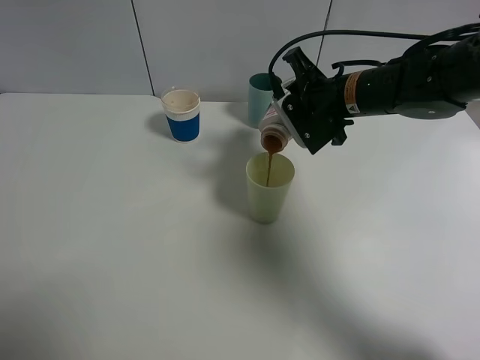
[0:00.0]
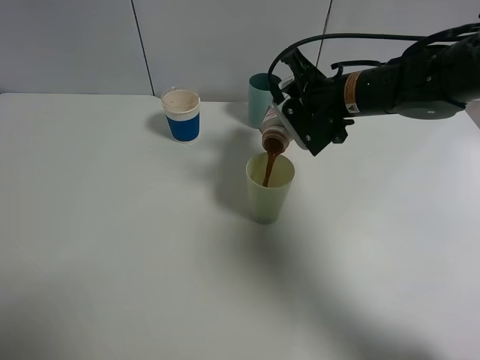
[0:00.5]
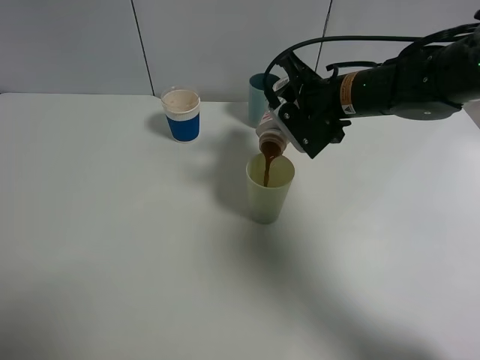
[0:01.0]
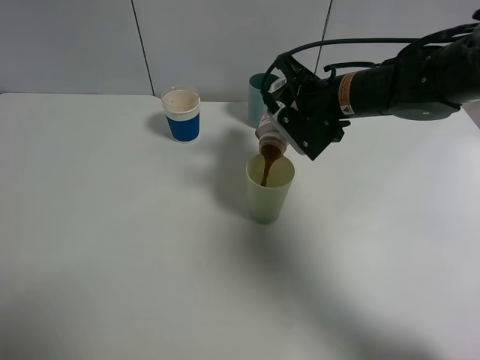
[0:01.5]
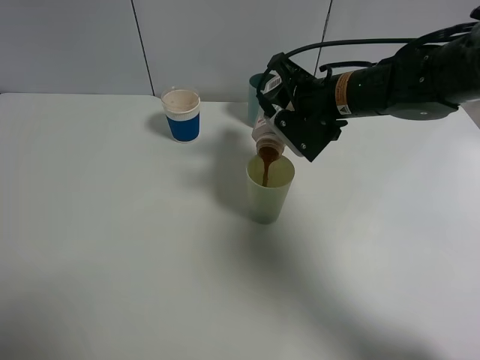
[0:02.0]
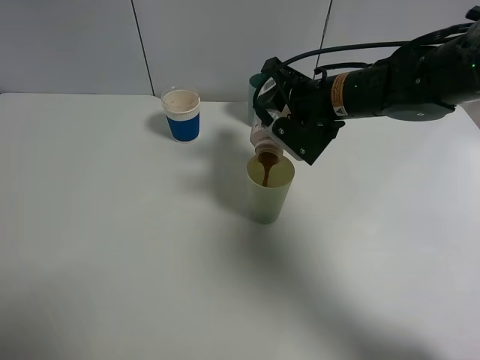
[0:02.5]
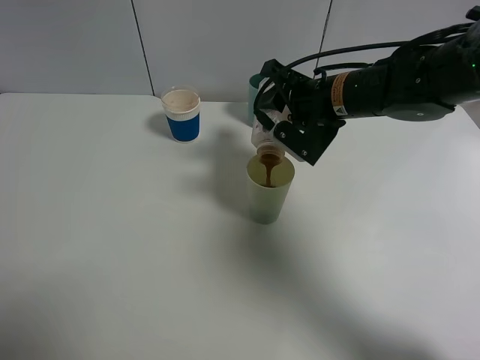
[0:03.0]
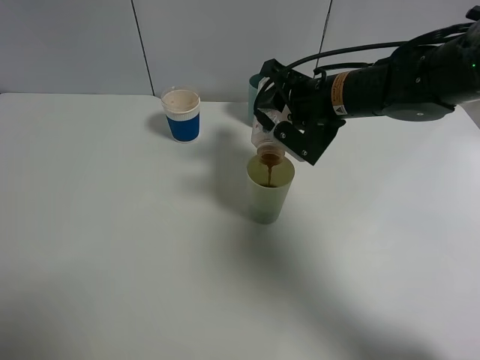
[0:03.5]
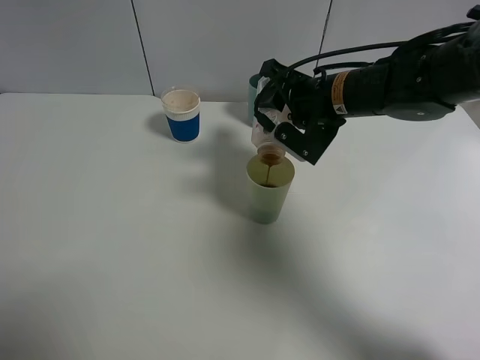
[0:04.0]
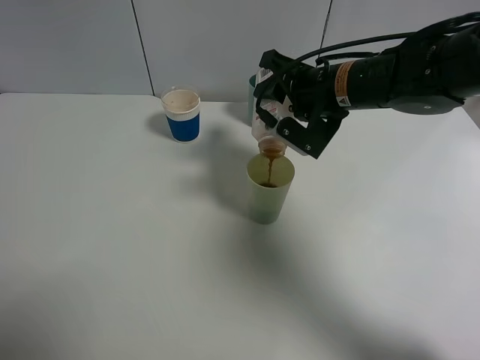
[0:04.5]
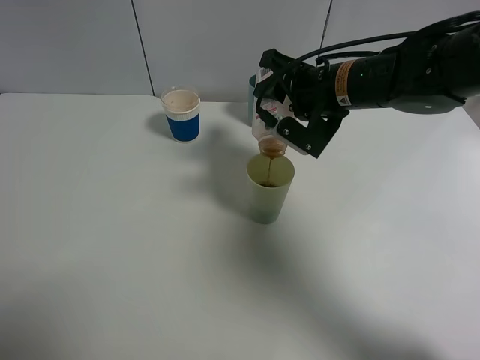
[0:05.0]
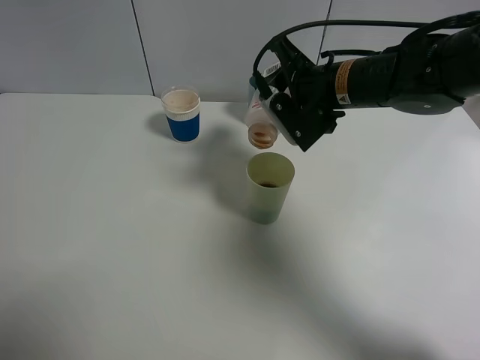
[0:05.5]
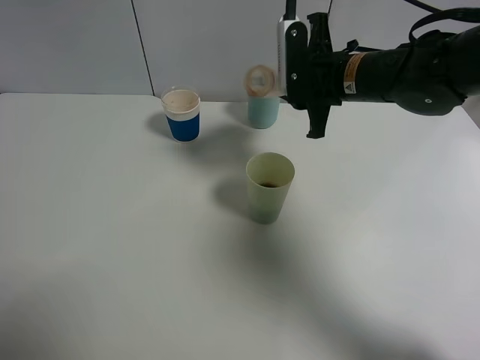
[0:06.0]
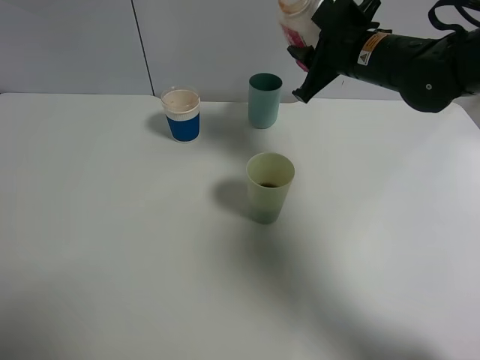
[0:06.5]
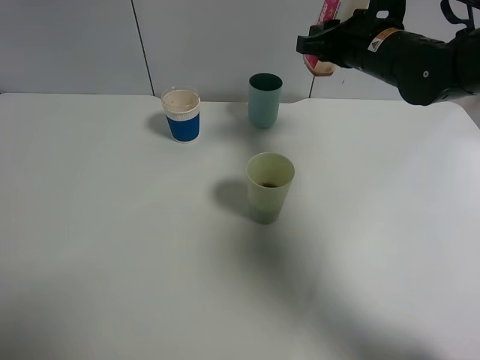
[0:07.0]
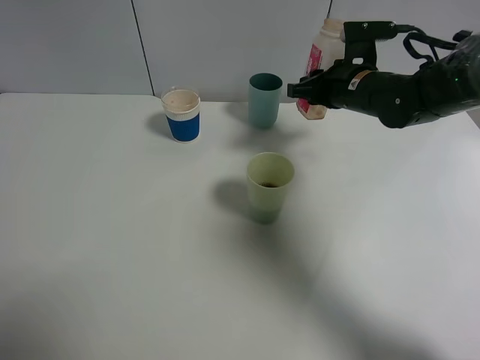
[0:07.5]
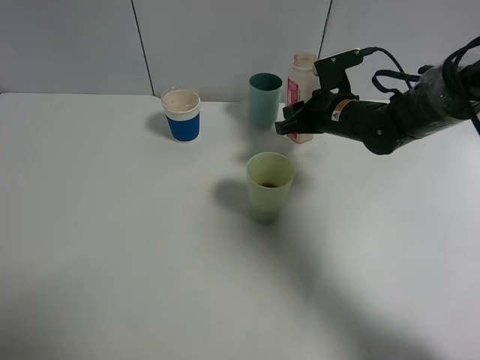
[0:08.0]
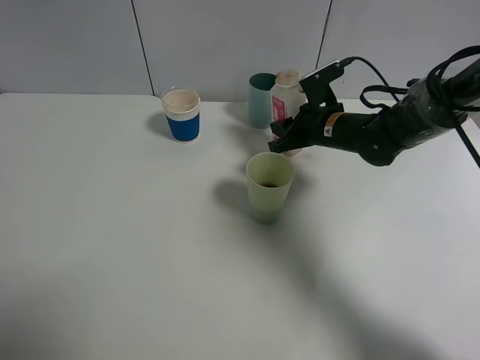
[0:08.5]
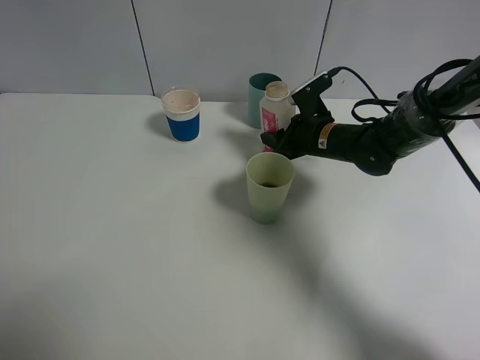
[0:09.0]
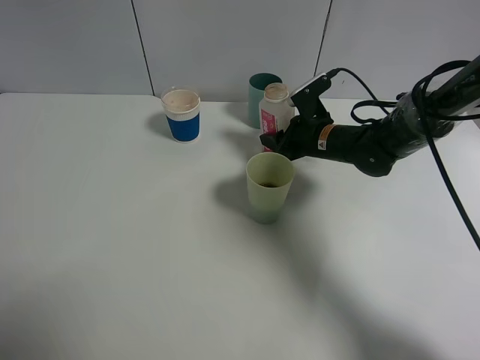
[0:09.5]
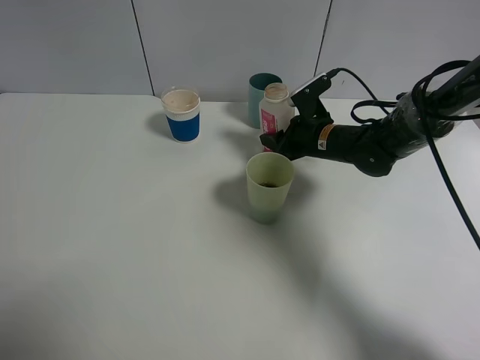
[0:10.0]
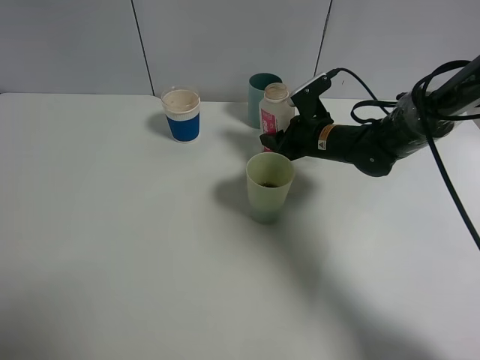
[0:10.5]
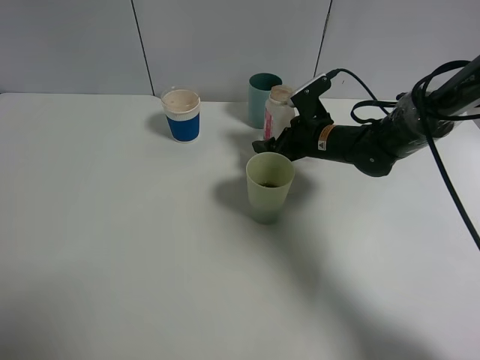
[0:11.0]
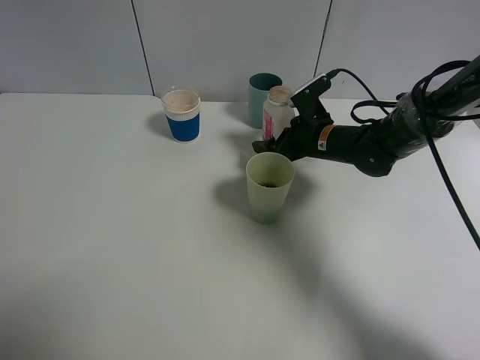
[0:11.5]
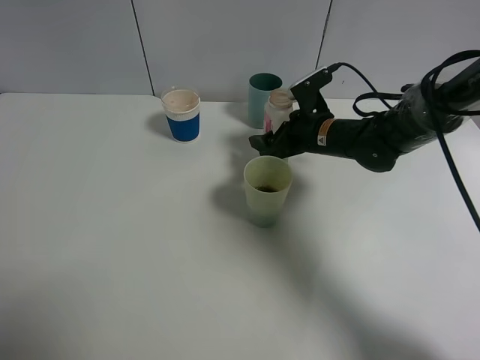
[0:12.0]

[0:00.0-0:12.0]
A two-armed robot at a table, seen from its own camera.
Task of the whole recording: use a gripper to hold the bottle of the drink and pour it into a random cup.
Step, 0:00.0 to 0:05.5: Pour the cranberry juice into the White Plastic Cup with the right gripper.
0:00.0 to 0:04.0: The grippers stay close to where they were, moving slightly.
0:06.0 to 0:08.0: The right gripper shifts roughly 10 cm downward.
0:08.0 to 0:10.0: There are only small adjustments of the grippers.
0:10.0 to 0:12.0: The right gripper opens up.

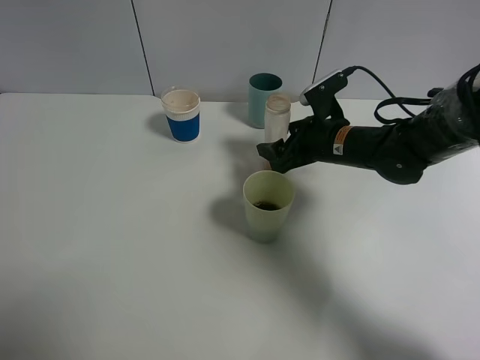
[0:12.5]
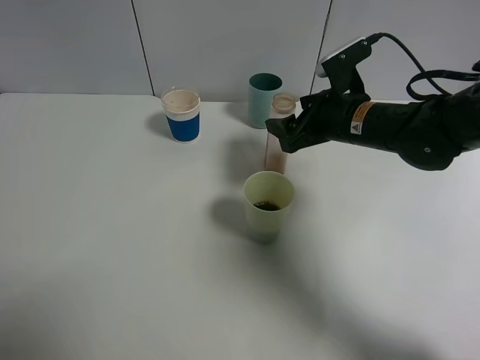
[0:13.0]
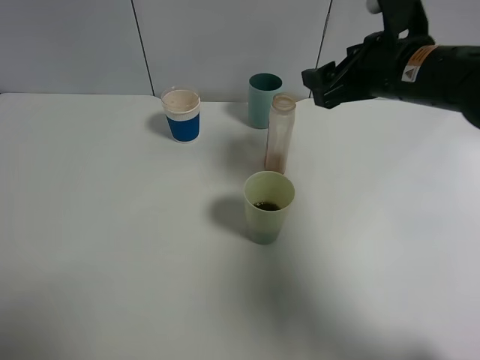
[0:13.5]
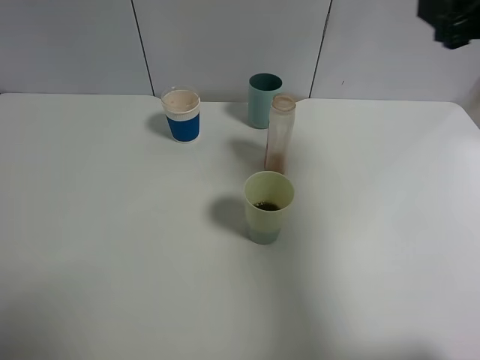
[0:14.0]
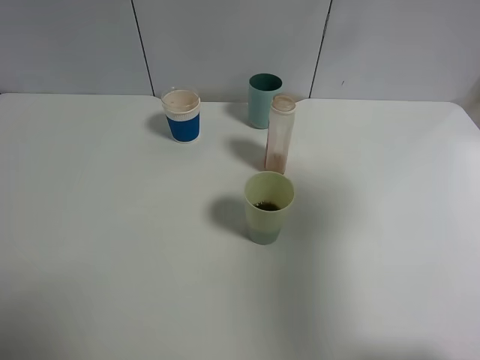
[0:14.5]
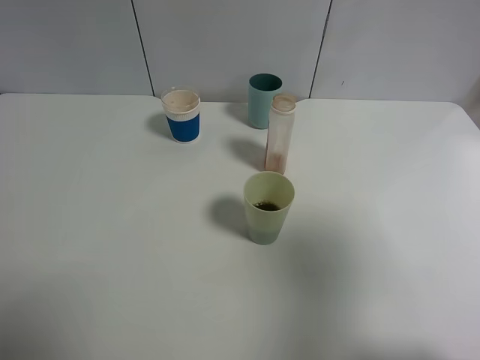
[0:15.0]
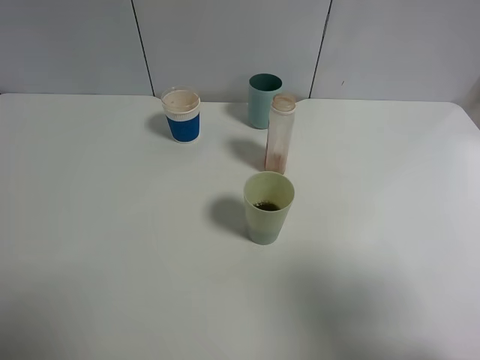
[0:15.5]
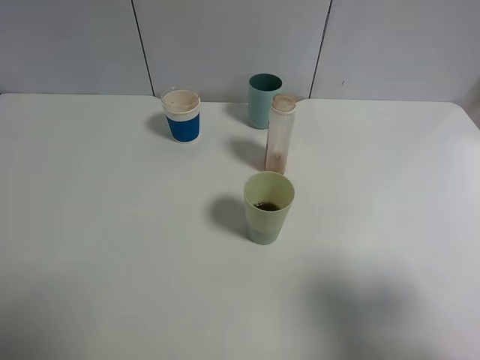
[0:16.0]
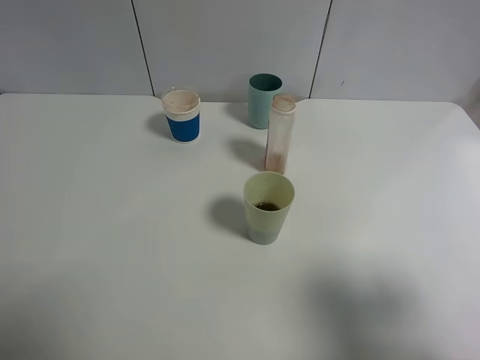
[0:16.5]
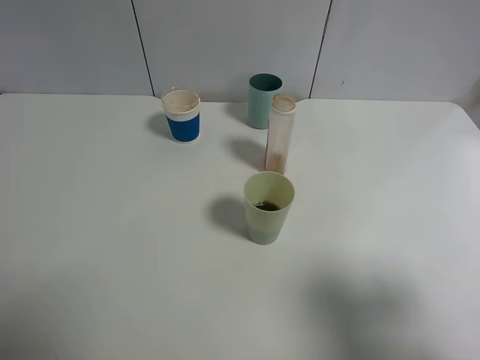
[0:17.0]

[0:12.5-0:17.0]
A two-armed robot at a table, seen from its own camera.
Task of the whole recording: use a gripper to hold the bottle of the drink and pour it into a random cup.
0:12.5 to 0:14.5: The right gripper is displaced upward, backward and to the right by approximately 35 cm.
0:14.5 to 0:17.0: The right gripper is displaced downward and backward by roughly 15 cm.

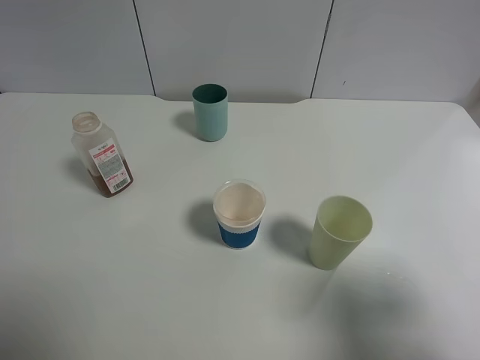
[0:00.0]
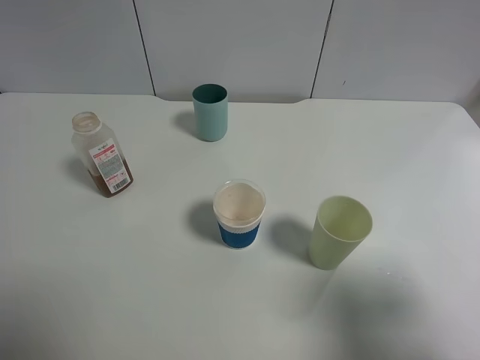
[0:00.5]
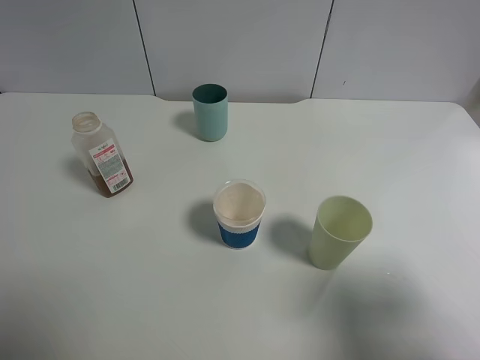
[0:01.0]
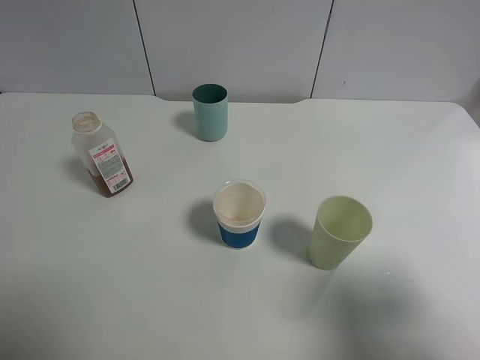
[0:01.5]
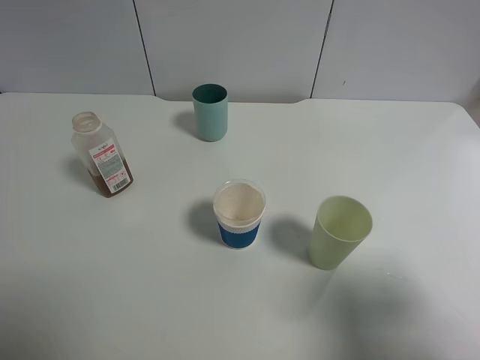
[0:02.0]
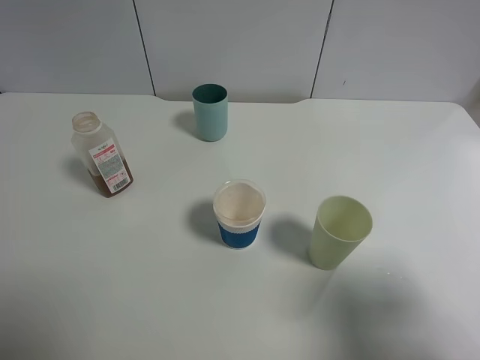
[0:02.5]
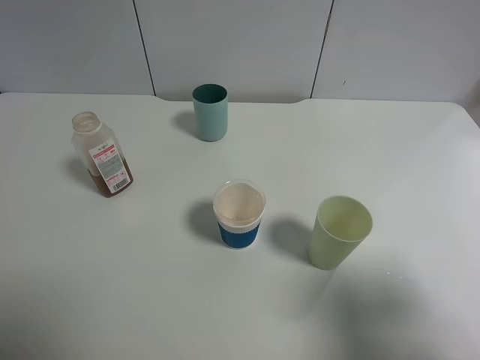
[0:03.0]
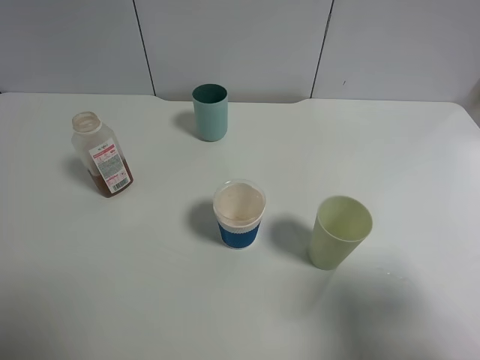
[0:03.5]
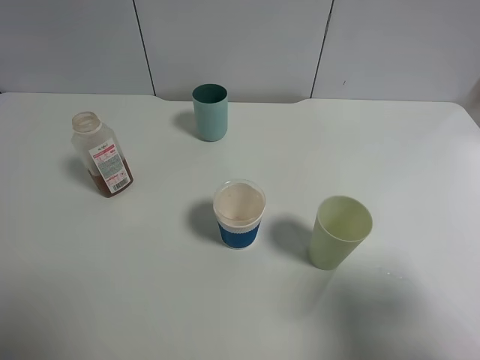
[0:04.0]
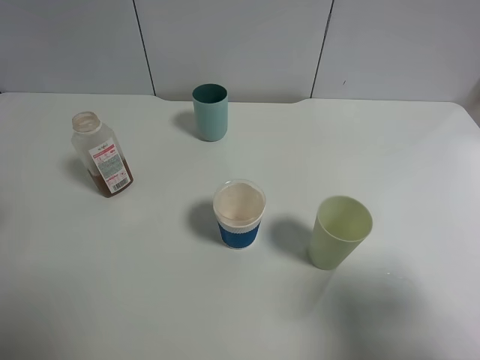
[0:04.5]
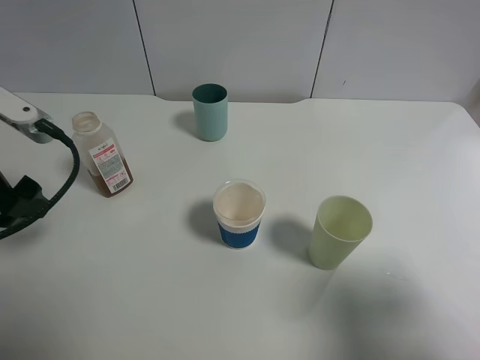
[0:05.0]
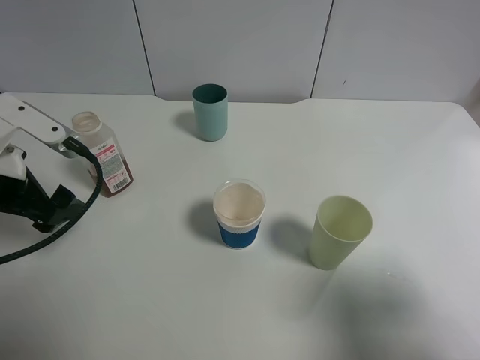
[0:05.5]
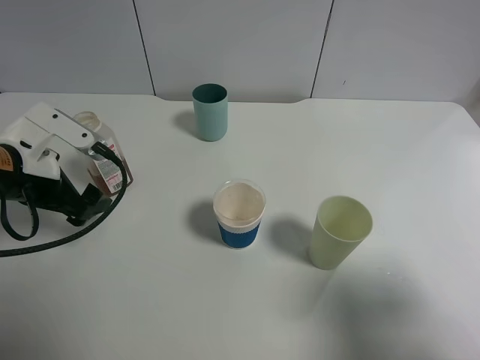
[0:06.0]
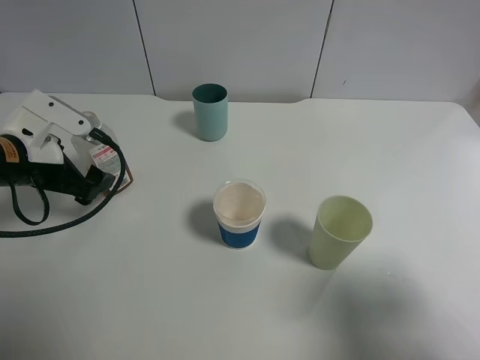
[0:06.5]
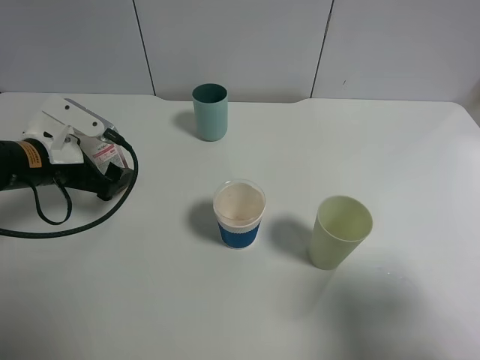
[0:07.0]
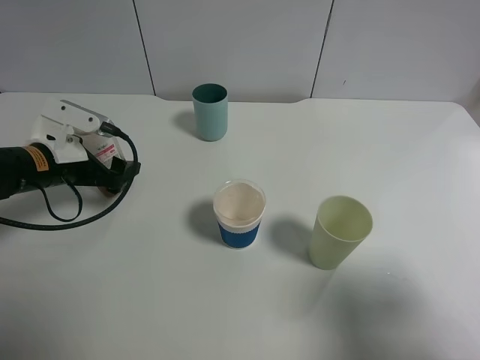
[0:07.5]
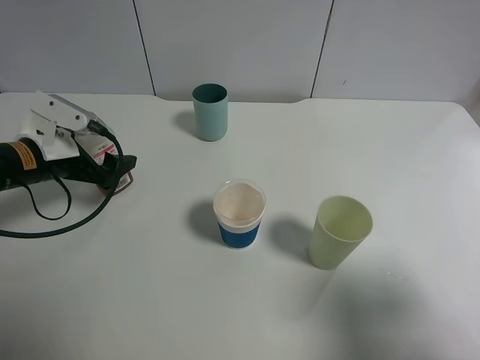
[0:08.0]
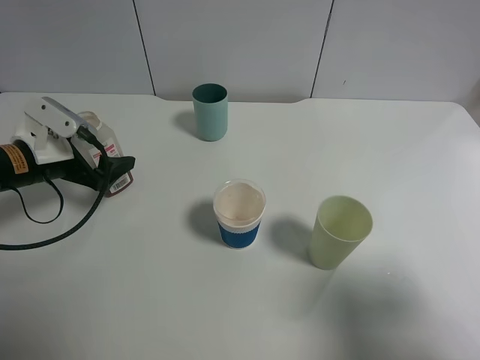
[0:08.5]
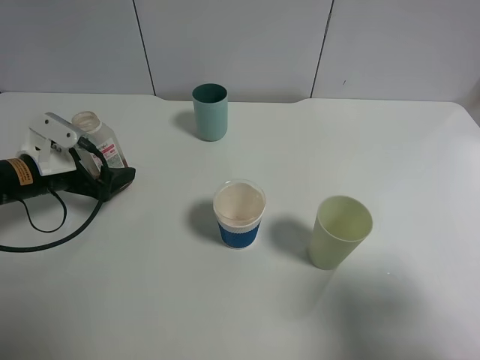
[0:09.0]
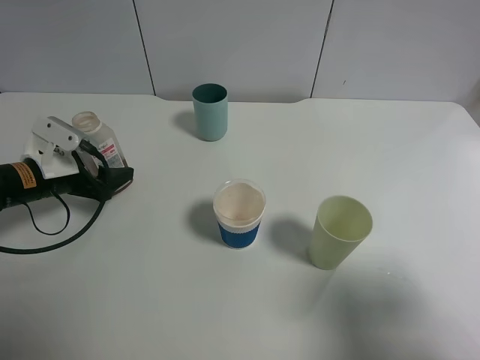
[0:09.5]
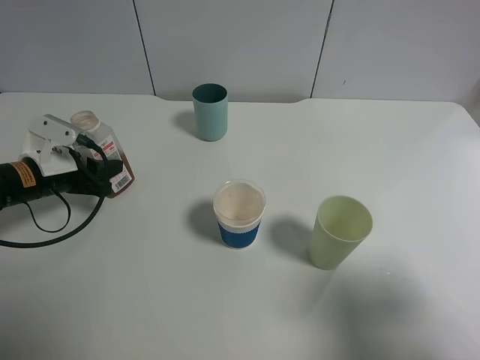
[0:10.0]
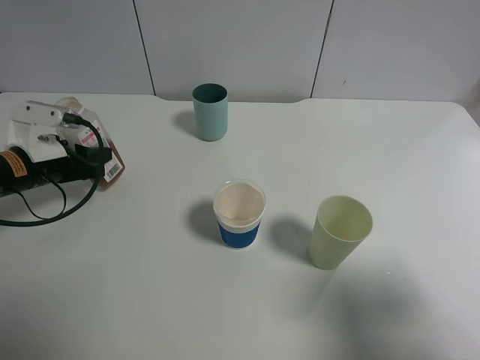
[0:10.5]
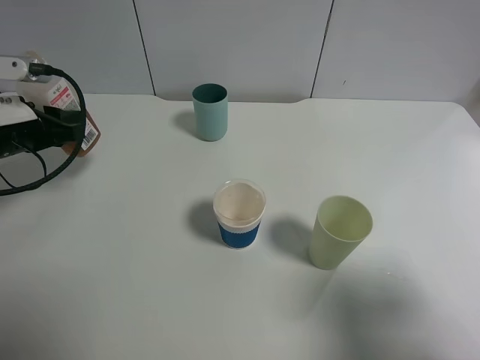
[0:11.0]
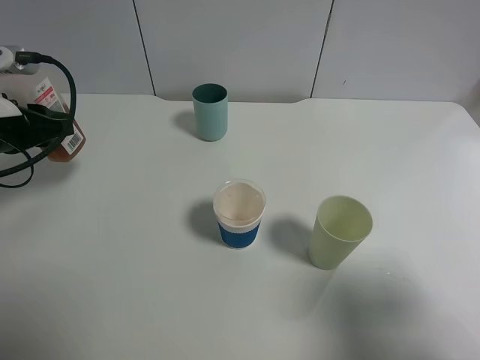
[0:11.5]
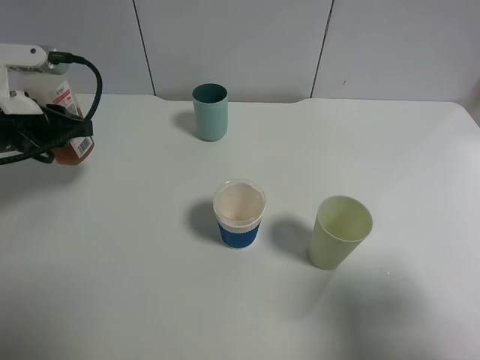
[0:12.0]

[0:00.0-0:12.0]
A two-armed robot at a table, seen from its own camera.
Task of the whole recording: use a gripper to hold the bottle of the drink and pour it into a random cup.
Step, 0:00.0 to 0:10.0: Grasp the cranberry juice bottle with the left gripper.
0:00.0 to 0:02.0: The two grippers keep their place.
0:04.0 to 0:06.0: The left gripper moves forward, downward and to the right, about 20 cm.
0:06.0 to 0:08.0: The left gripper heads forward, covering approximately 5 cm.
0:08.0 to 0:10.0: The left gripper closes its fingers.
0:10.0 to 0:12.0: The left gripper goes roughly 10 cm upward.
